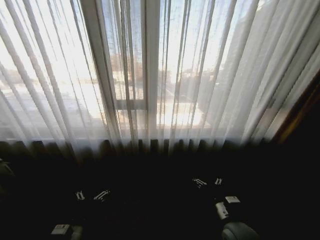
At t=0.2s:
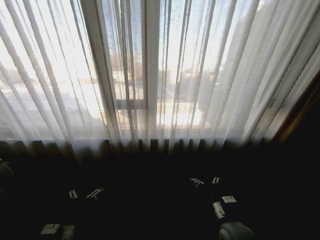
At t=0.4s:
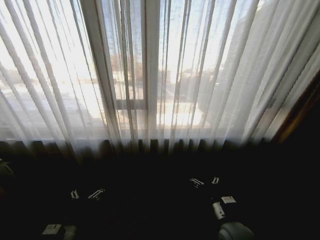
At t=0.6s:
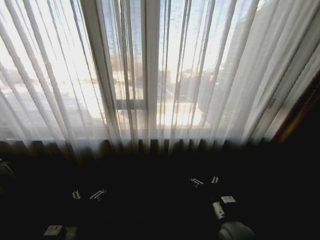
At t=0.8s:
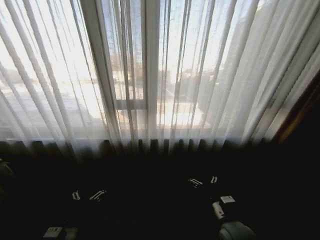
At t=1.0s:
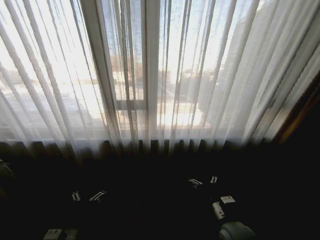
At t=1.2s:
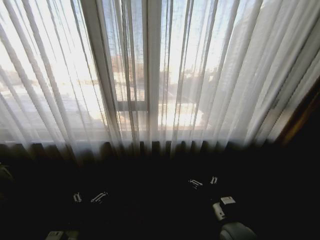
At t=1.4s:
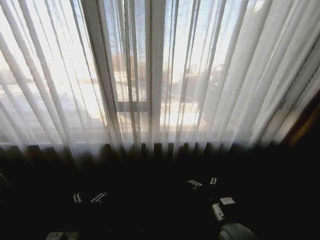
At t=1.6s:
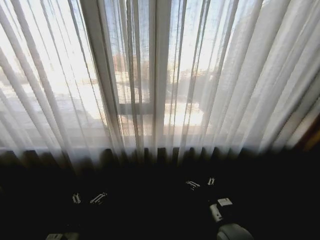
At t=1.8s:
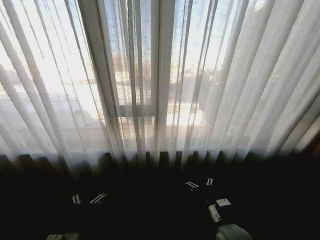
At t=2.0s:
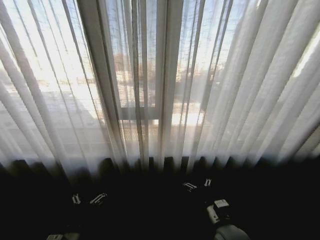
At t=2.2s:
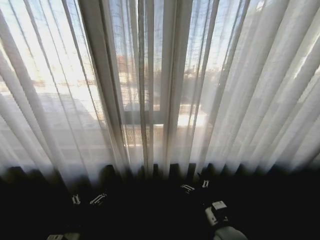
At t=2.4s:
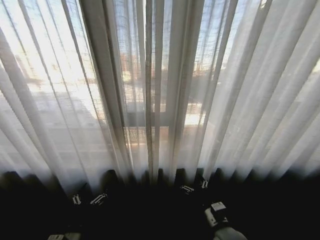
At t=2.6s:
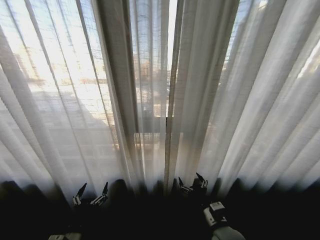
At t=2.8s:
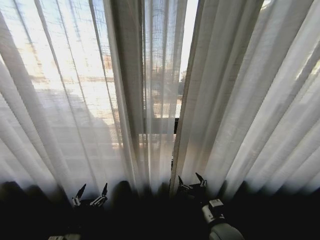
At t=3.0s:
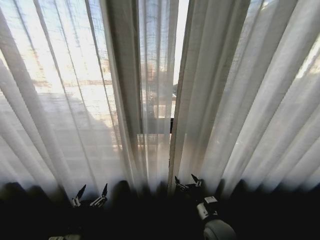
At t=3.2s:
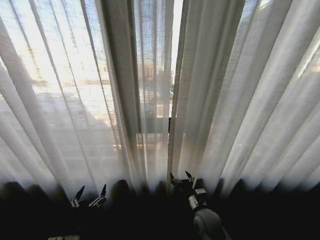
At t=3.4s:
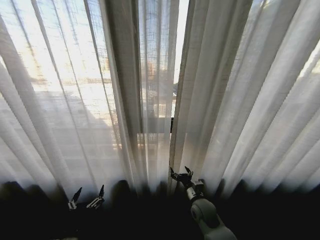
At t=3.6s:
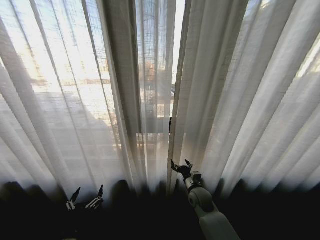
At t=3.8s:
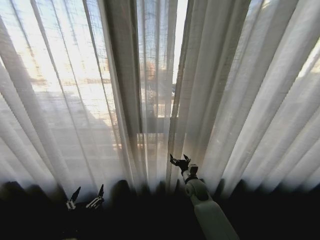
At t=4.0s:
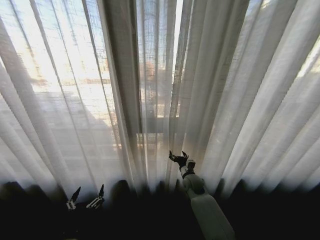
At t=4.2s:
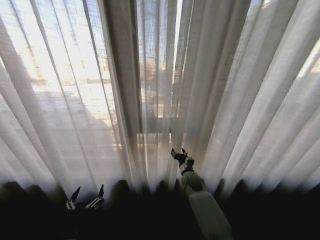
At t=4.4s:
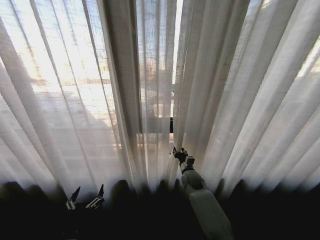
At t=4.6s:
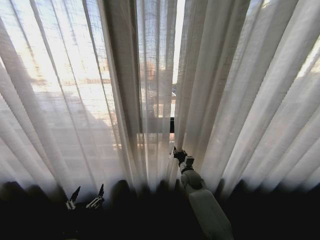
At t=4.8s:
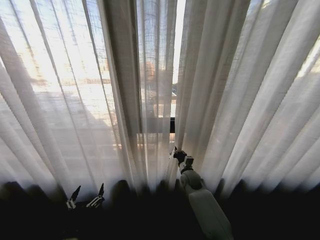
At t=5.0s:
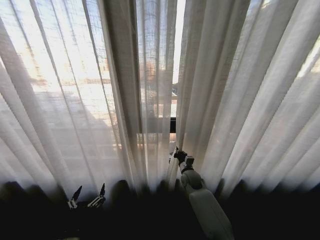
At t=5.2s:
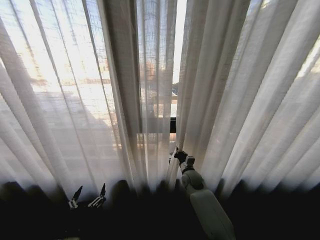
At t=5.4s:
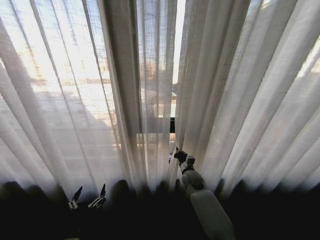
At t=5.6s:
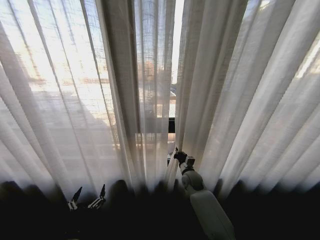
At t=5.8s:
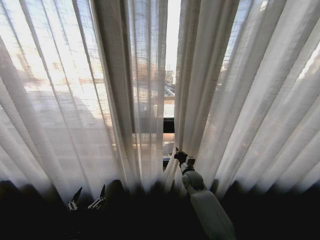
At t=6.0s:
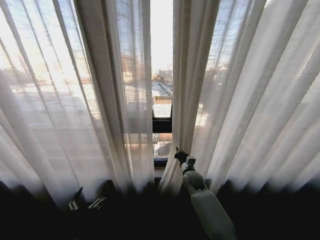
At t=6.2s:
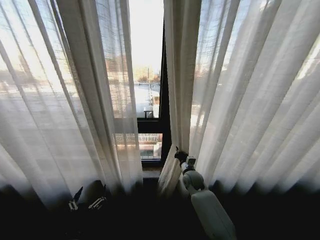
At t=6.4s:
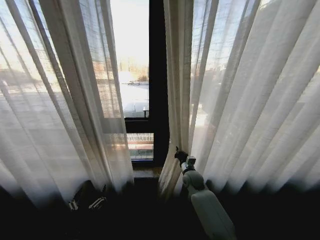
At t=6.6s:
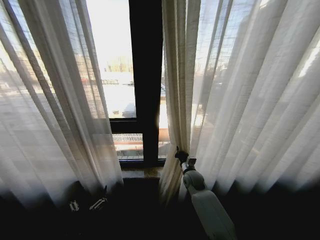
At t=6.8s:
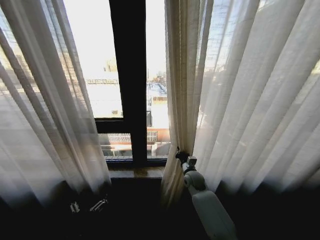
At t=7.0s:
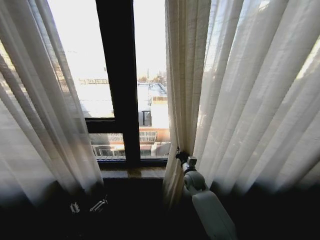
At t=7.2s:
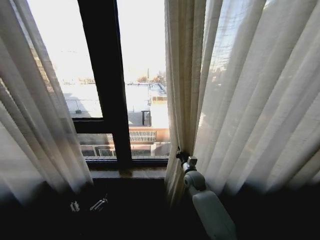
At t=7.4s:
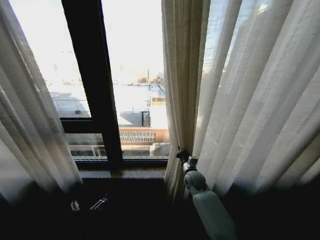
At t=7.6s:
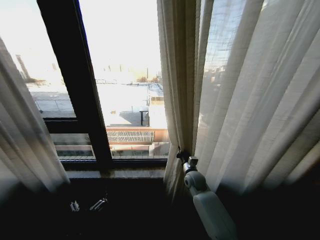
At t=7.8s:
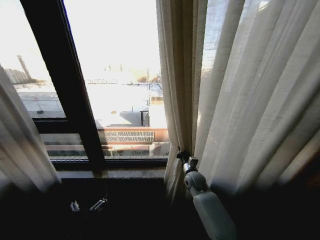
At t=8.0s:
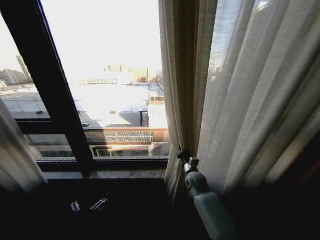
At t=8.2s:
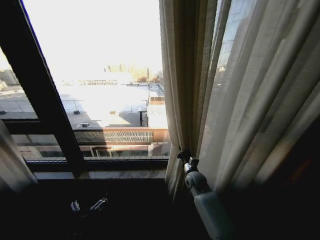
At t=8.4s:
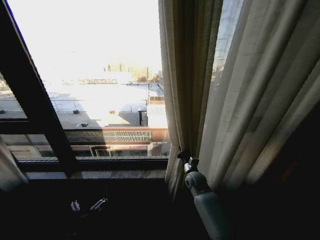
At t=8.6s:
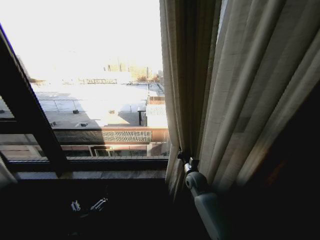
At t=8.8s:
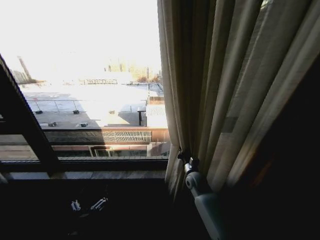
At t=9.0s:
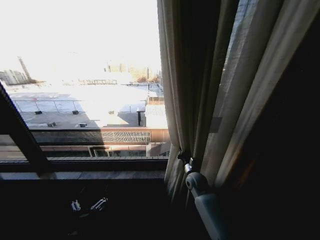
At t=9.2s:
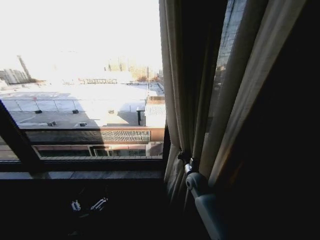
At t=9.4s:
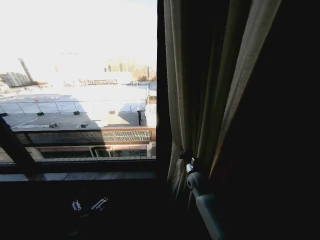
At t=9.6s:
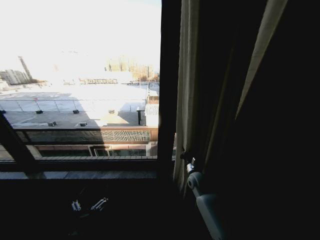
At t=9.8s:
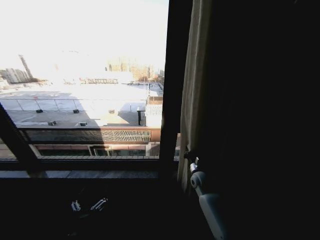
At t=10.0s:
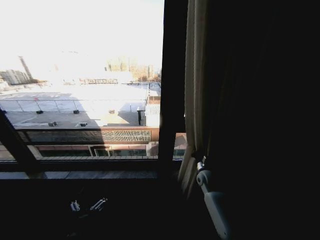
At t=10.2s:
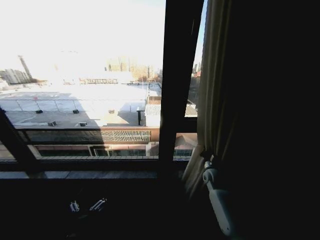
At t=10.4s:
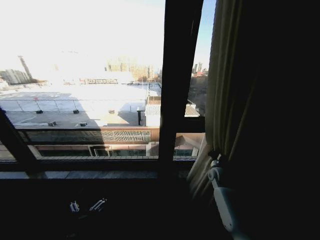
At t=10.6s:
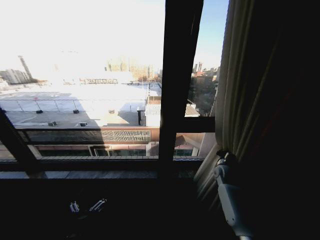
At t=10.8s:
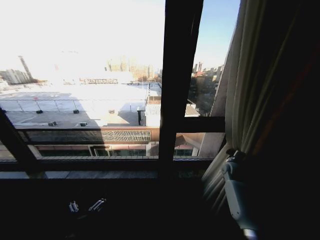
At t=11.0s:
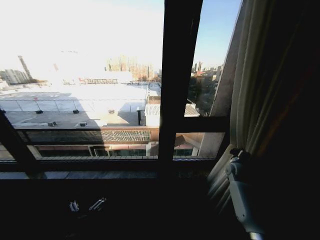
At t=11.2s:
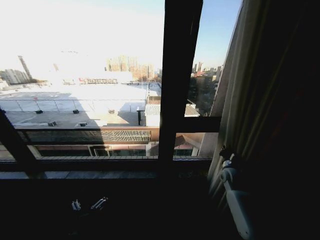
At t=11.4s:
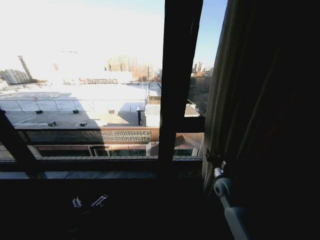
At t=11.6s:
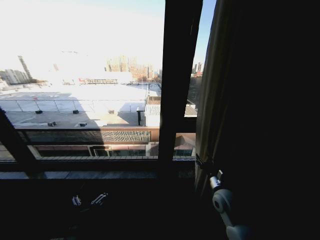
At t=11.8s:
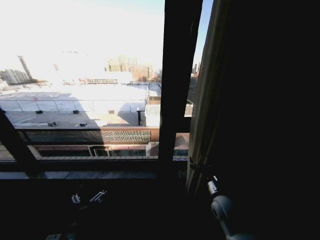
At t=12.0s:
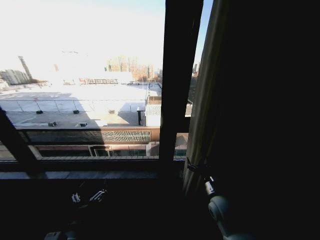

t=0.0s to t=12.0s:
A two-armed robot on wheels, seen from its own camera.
Task of the whole recording: Open the curtains by pulling them apart, changing their state from closed to fully open.
t=3.0s to t=4.4s: The right gripper is displaced forward by about 20 cm, and closes up.
t=4.4s to t=6.0s: The right gripper closes.
t=9.0s to t=10.4s: The right gripper is displaced to the right by roughly 15 cm.
t=10.4s to t=12.0s: The right gripper heads backward and to the left, covering about 20 cm, and opens up.

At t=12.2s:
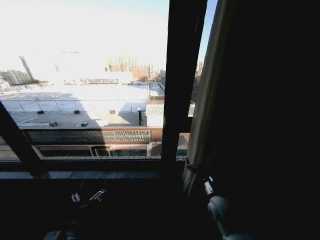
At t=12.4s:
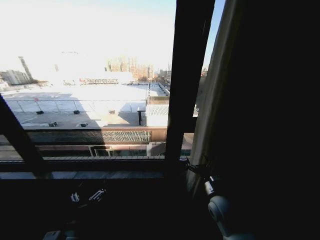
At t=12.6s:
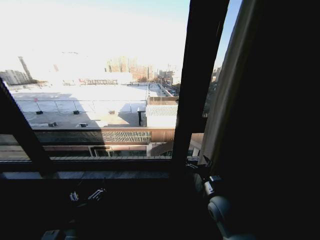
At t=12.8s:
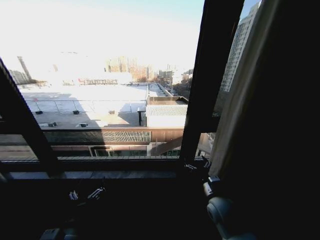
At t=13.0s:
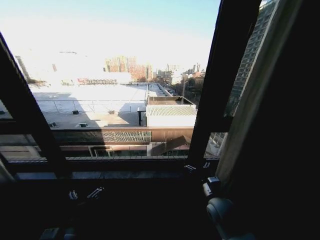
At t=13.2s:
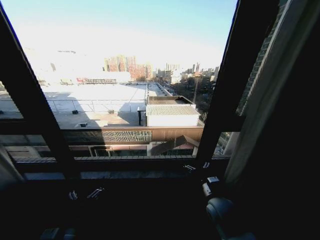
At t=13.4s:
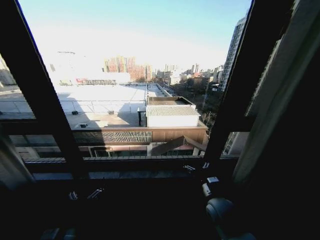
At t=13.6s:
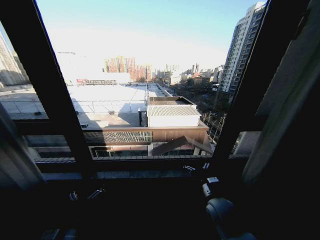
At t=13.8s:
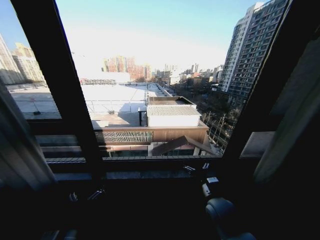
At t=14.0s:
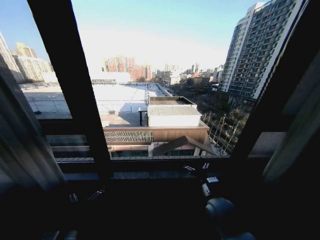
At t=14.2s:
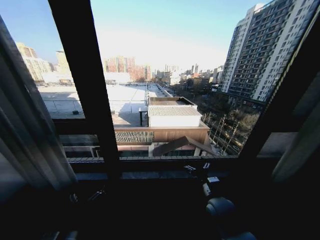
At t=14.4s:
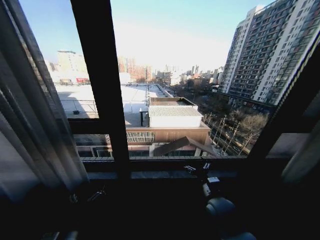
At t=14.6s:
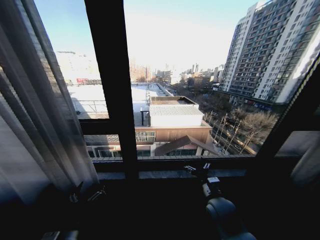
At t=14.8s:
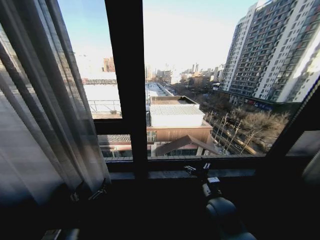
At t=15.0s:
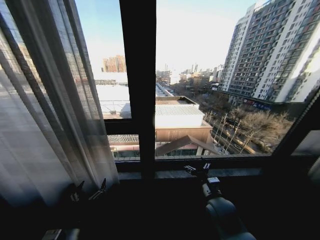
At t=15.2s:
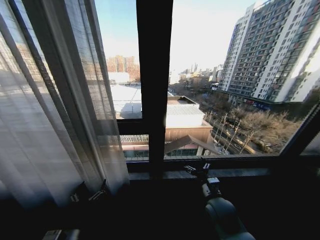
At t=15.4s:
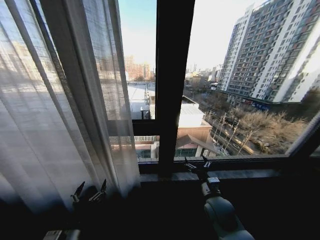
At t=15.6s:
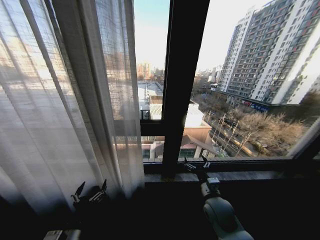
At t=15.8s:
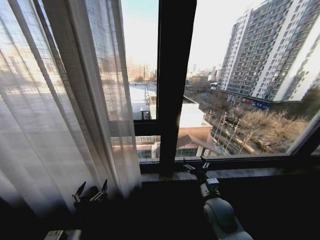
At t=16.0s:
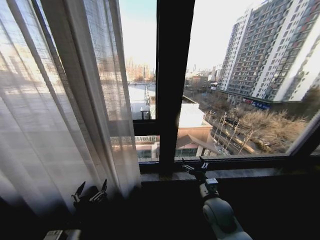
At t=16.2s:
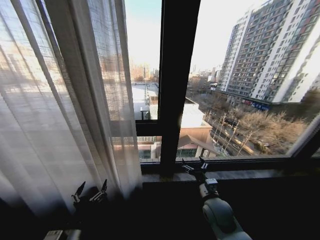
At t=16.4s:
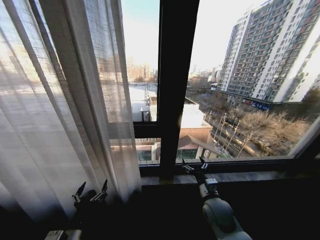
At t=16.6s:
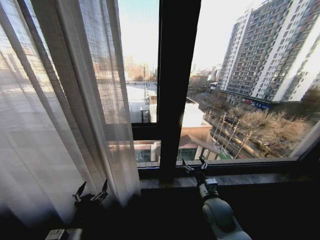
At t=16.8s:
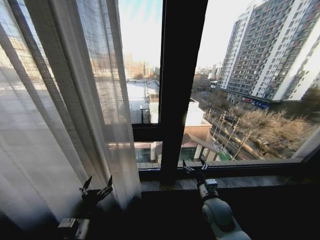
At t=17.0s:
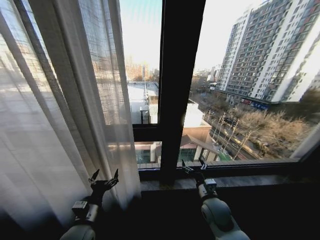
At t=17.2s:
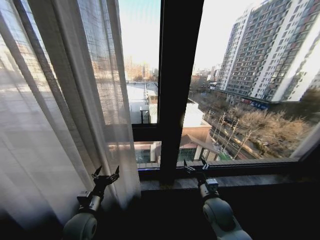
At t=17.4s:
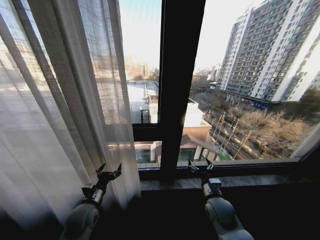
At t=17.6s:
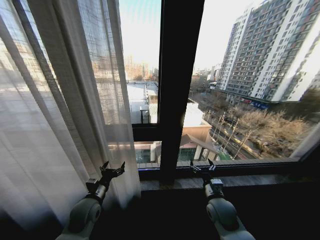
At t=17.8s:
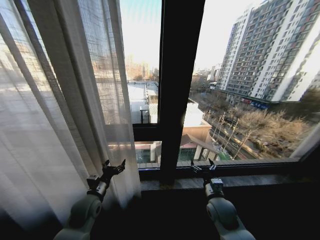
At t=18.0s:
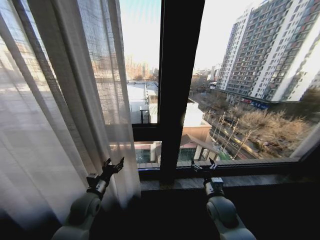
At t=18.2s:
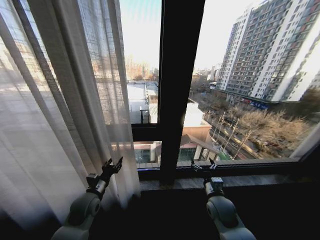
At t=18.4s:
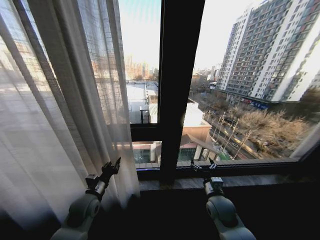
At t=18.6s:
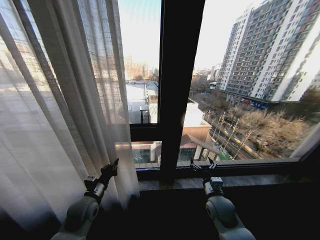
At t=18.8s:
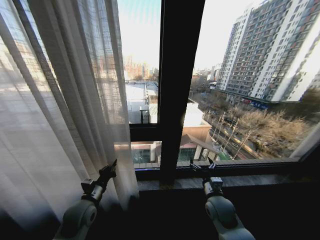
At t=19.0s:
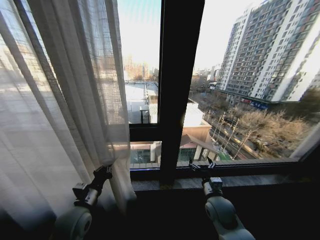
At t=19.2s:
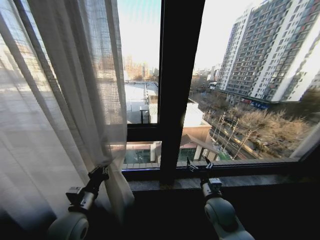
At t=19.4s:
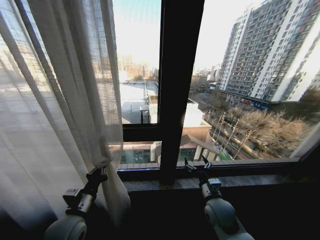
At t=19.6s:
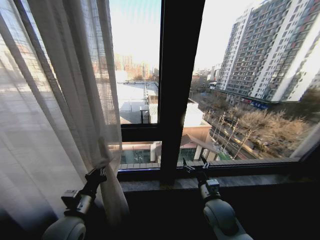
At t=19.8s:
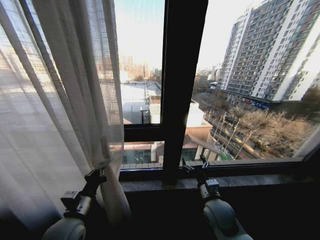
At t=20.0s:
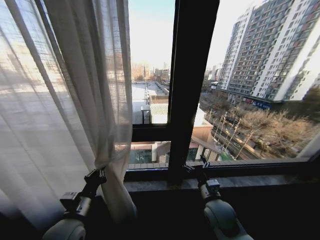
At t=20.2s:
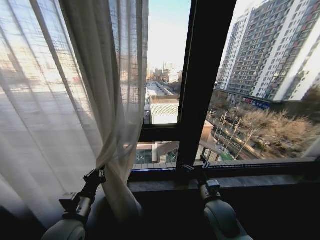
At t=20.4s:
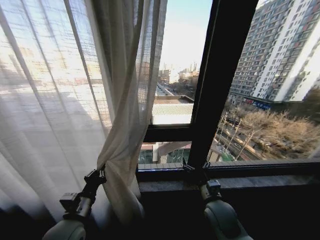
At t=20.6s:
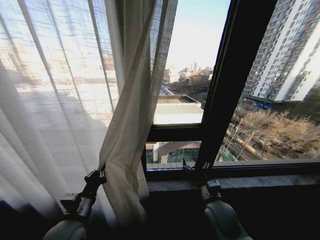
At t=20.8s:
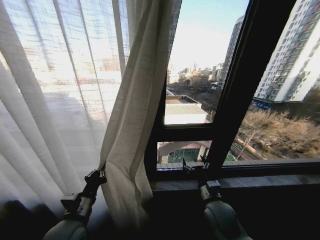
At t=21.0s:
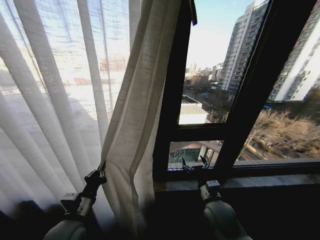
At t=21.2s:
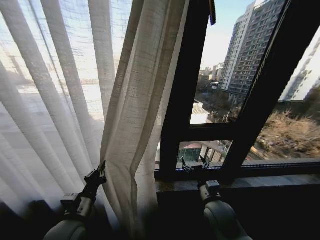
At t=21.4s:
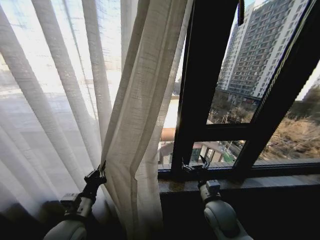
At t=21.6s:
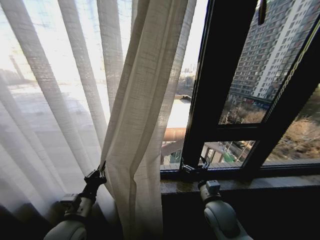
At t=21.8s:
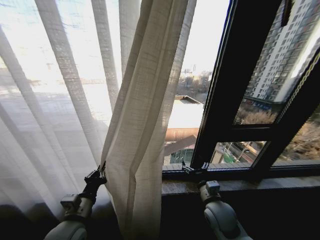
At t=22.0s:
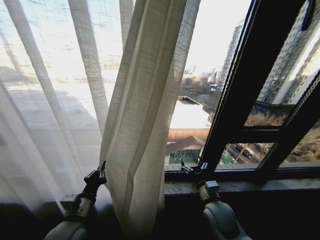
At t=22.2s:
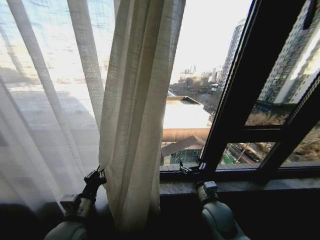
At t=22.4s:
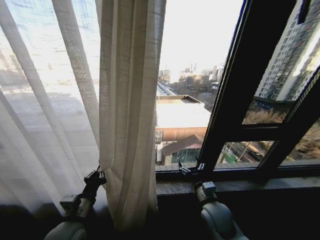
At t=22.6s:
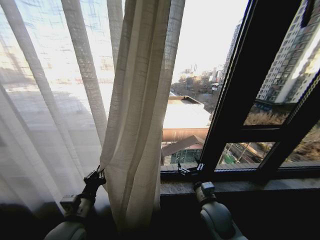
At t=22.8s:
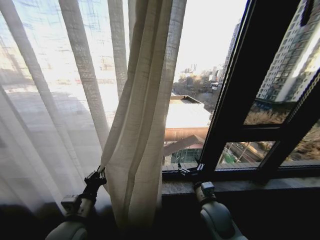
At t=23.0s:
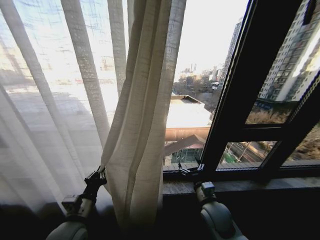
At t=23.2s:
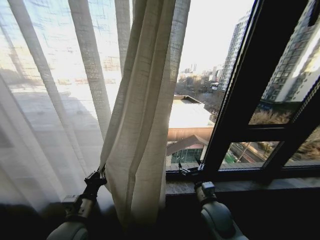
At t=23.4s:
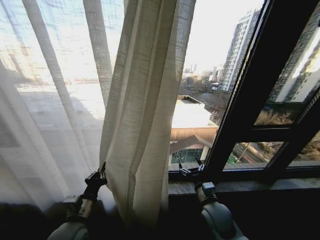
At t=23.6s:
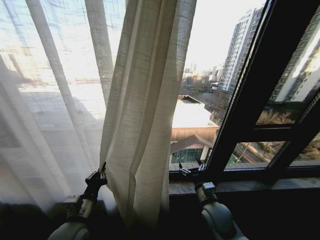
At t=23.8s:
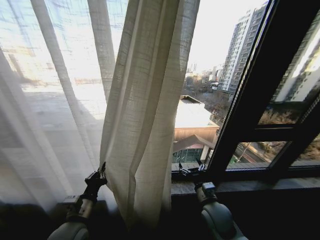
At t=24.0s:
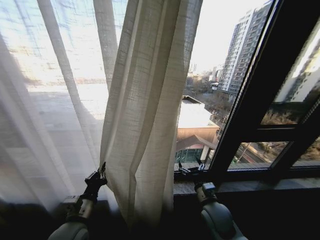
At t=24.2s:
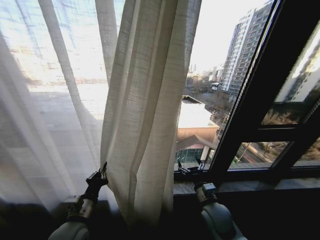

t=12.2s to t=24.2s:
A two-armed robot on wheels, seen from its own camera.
Task of the whole recording: Open the curtains by pulling them apart, changing their state from closed to fully open.
t=16.6s to t=18.2s: The left gripper is displaced forward by some 20 cm, and closes its fingers.
t=18.2s to t=19.8s: The right gripper shifts by roughly 5 cm; the left gripper travels backward and upward by approximately 10 cm, and closes.
